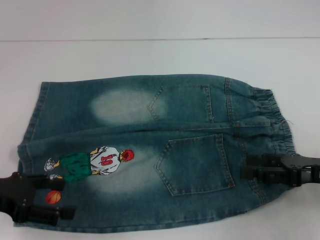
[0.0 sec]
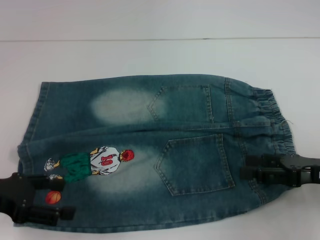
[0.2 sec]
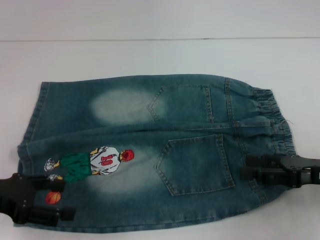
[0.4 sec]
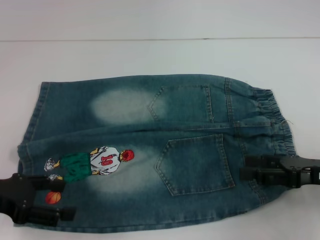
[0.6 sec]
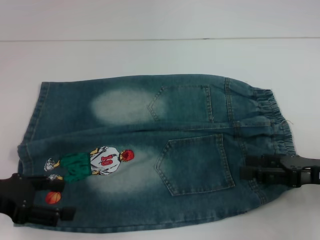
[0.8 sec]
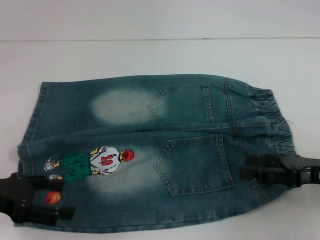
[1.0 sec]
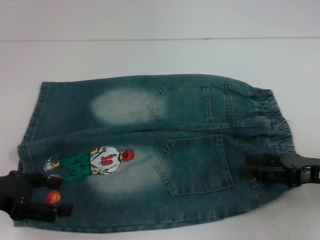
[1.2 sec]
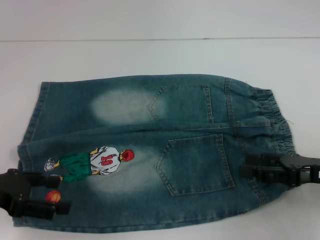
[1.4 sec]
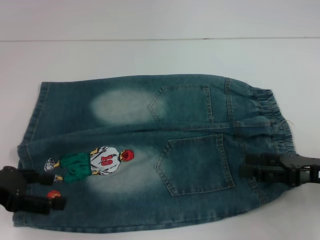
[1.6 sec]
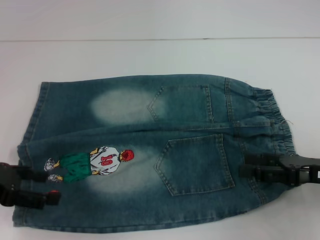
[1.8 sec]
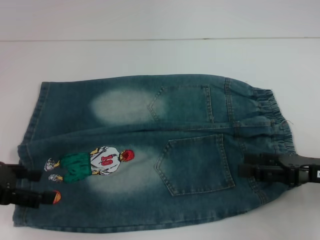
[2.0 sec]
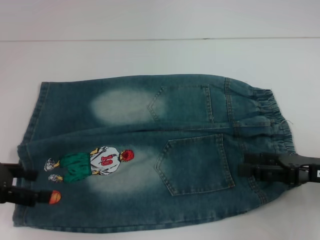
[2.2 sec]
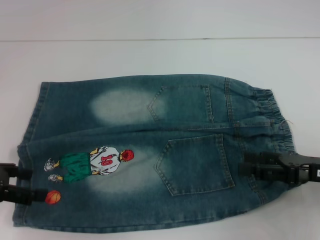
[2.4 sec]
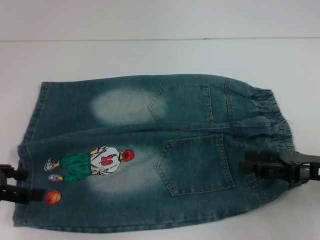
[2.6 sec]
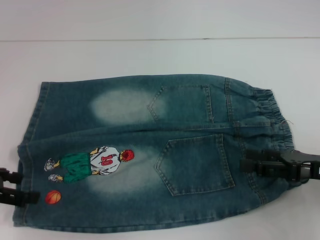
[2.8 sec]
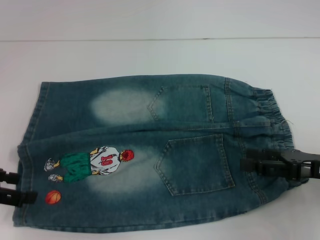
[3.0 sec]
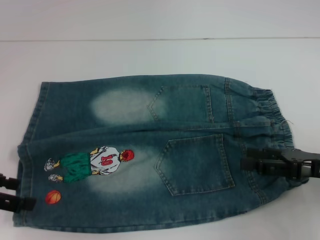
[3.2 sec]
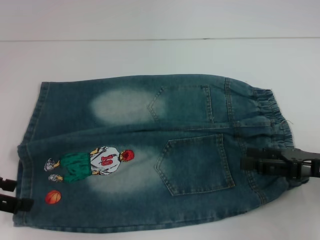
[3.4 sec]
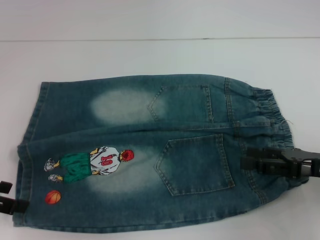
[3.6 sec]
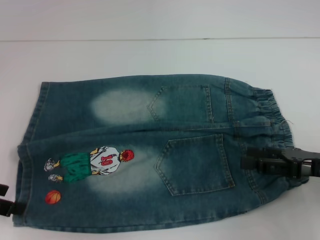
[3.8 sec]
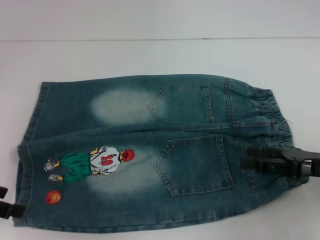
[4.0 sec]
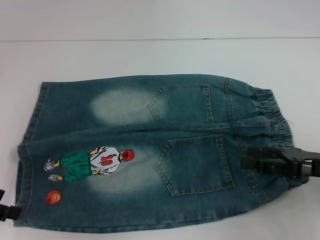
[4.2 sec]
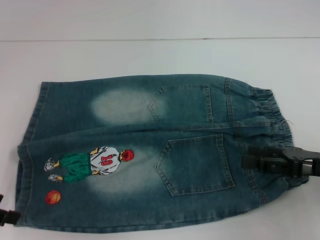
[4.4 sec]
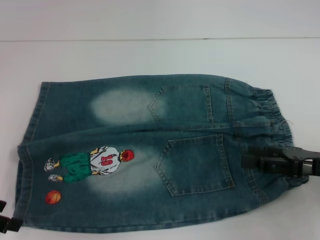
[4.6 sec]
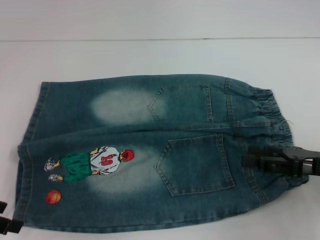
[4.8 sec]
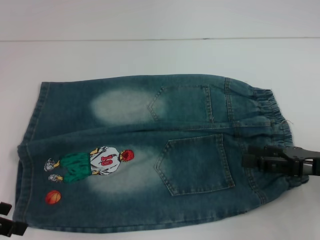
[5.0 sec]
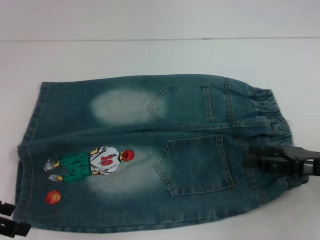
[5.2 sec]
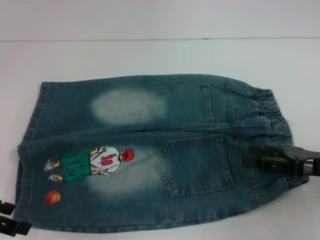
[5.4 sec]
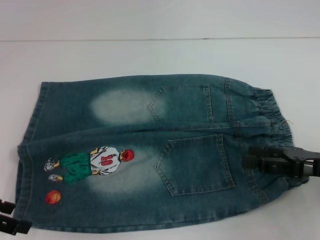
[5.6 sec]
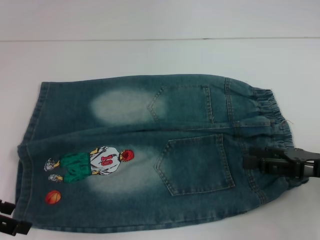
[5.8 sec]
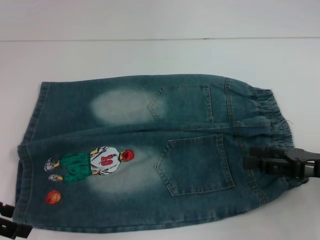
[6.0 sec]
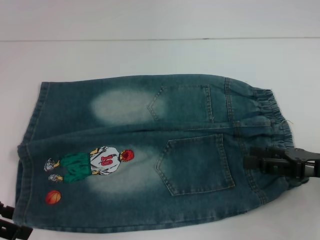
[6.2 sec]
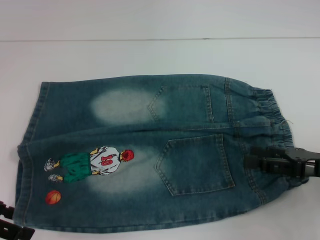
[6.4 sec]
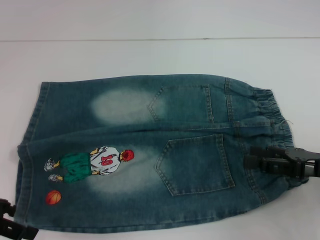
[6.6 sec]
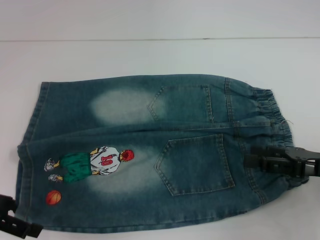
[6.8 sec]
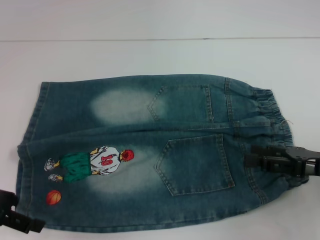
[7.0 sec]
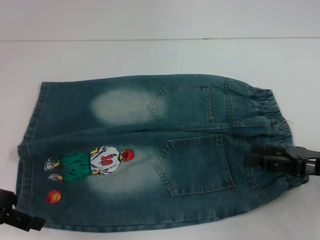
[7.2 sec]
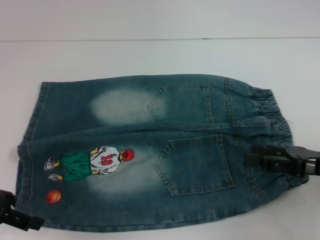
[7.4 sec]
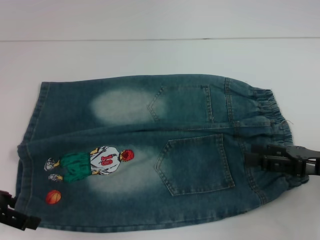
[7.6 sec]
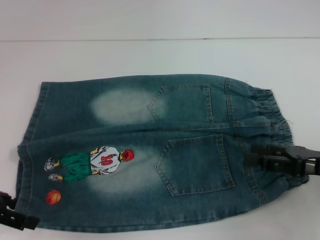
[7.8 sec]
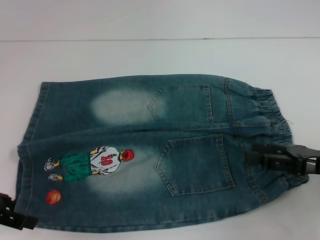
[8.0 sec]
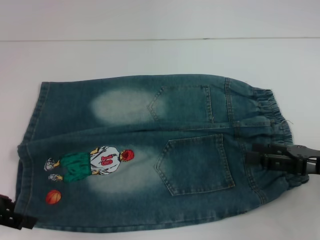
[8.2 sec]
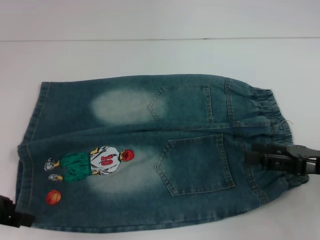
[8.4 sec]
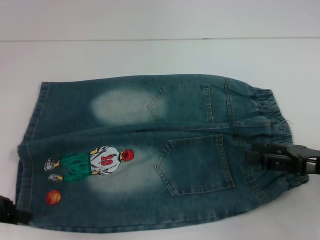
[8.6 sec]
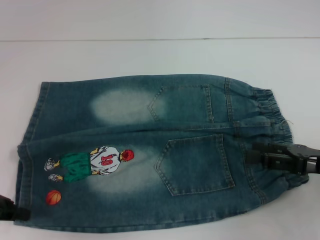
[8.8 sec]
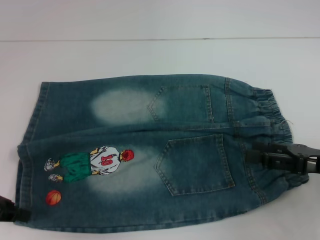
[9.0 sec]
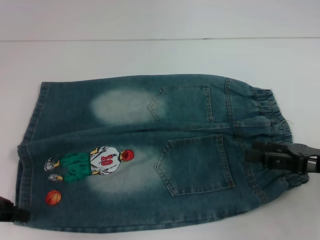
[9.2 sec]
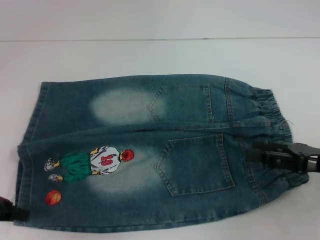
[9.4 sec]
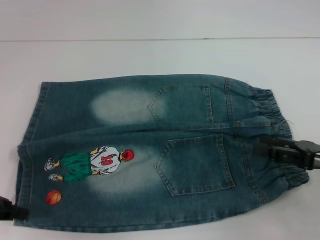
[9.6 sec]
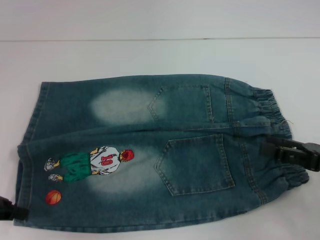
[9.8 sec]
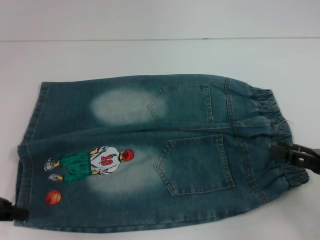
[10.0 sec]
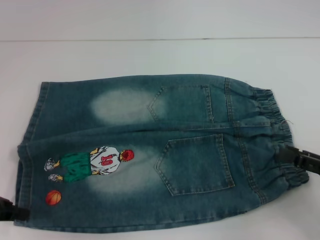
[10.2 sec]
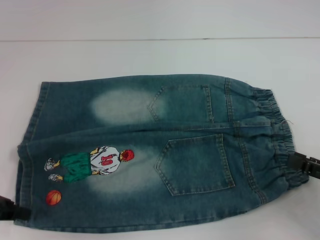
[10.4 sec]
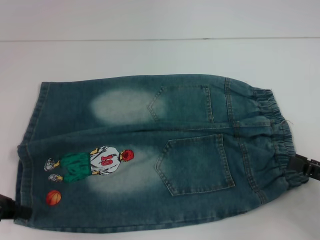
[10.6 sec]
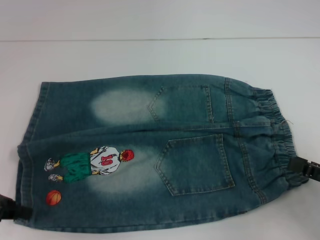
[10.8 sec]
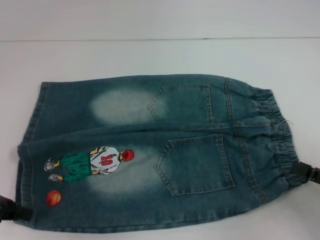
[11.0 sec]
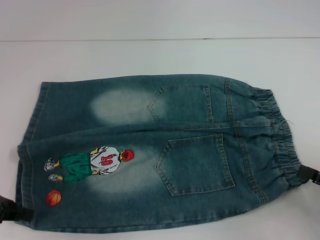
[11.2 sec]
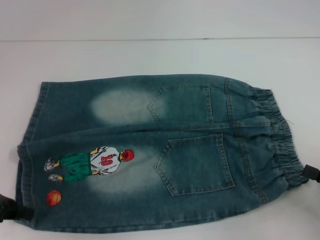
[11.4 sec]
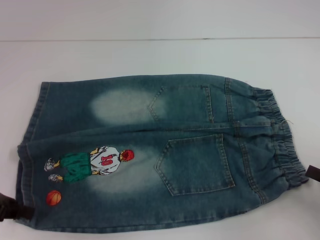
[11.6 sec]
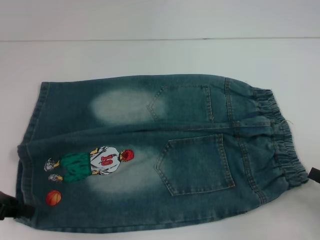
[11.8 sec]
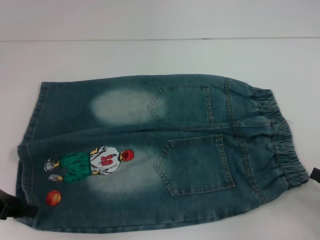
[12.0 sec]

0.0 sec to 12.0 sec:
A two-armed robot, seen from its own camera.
Step, 0.0 sec to 8.8 sec: Grab the lower left pant leg with your left hand.
0.0 sec to 3.0 sec: The grippers move only a little.
3.0 sec to 7.6 sec: The grippers stay close to where they were, moving slightly.
7.6 sec to 9.0 sec: The left gripper closes up.
9.0 sec to 10.4 sec: The right gripper heads backward, covering about 5 cm.
10.4 sec to 12.0 sec: The grippers move only a little.

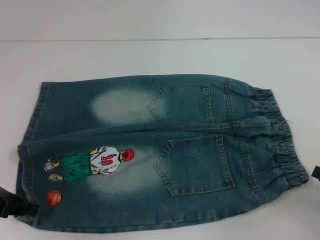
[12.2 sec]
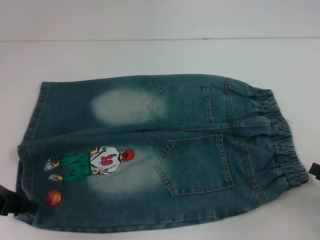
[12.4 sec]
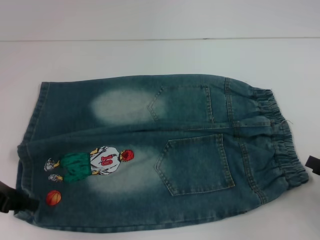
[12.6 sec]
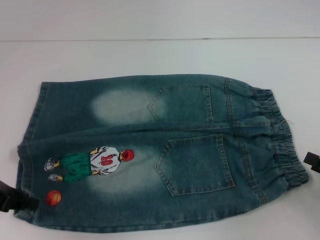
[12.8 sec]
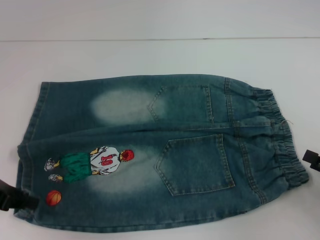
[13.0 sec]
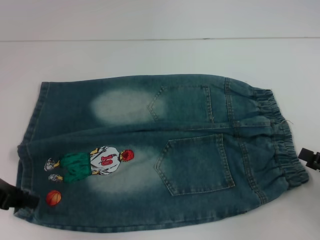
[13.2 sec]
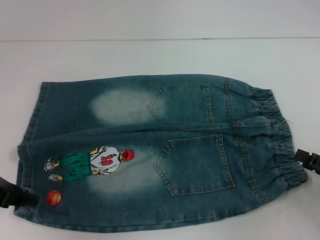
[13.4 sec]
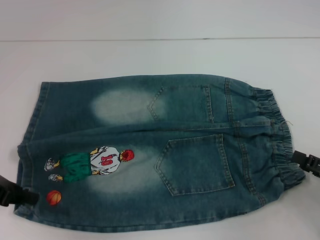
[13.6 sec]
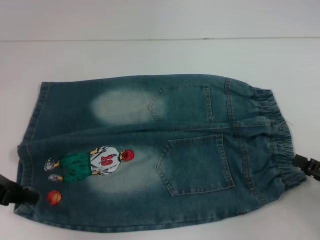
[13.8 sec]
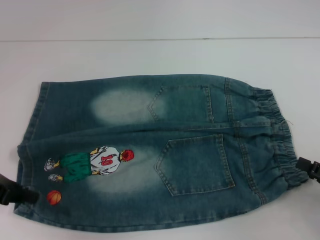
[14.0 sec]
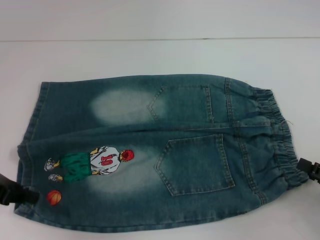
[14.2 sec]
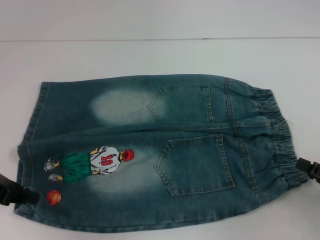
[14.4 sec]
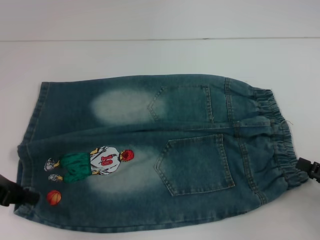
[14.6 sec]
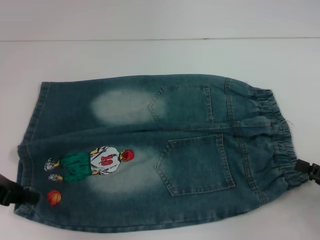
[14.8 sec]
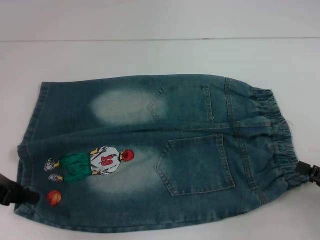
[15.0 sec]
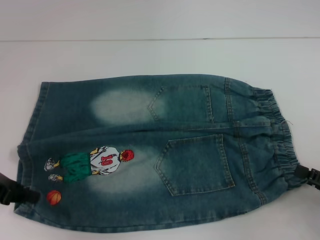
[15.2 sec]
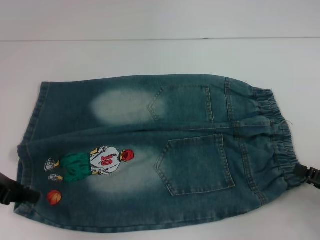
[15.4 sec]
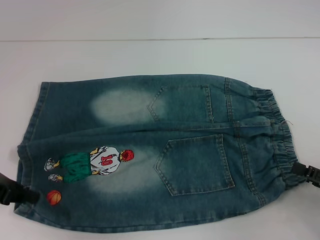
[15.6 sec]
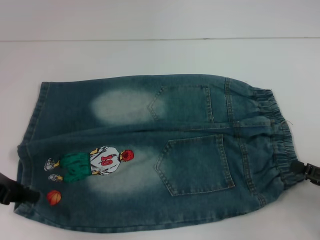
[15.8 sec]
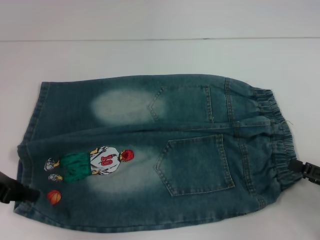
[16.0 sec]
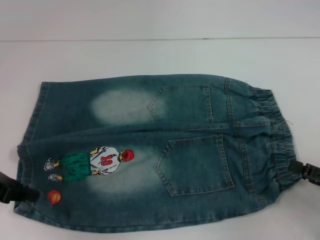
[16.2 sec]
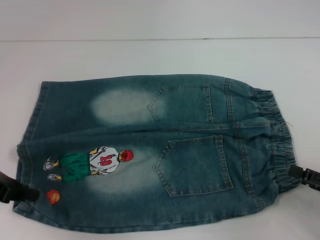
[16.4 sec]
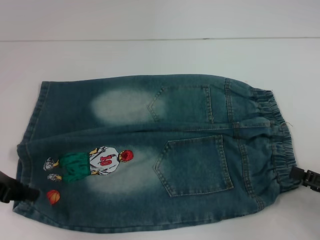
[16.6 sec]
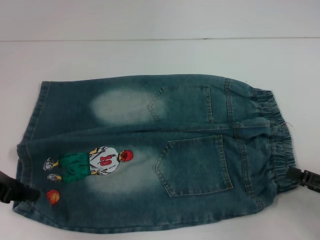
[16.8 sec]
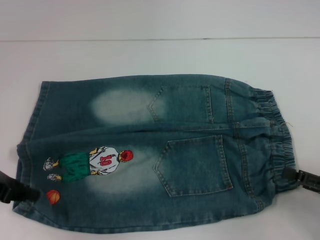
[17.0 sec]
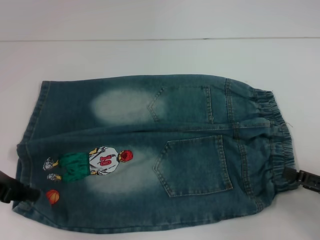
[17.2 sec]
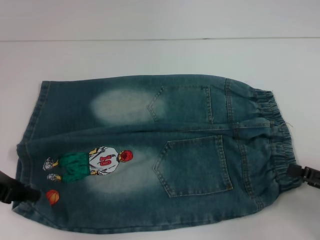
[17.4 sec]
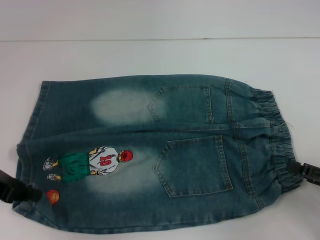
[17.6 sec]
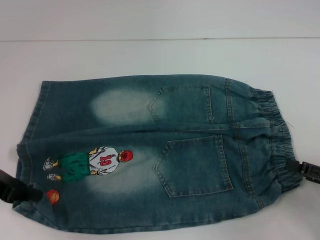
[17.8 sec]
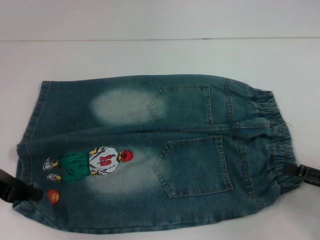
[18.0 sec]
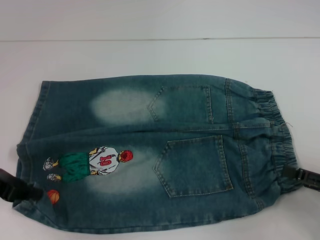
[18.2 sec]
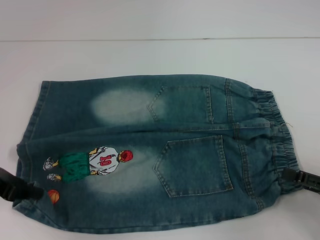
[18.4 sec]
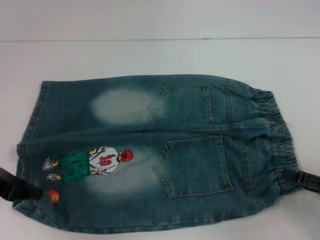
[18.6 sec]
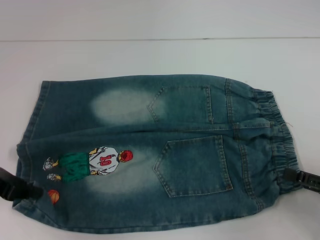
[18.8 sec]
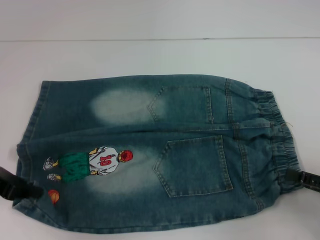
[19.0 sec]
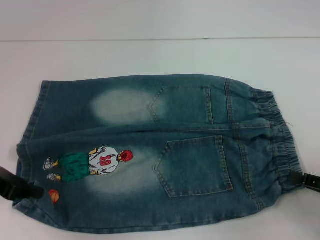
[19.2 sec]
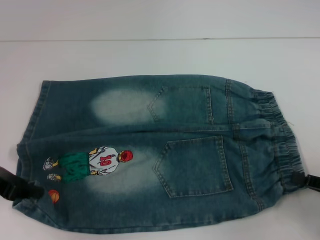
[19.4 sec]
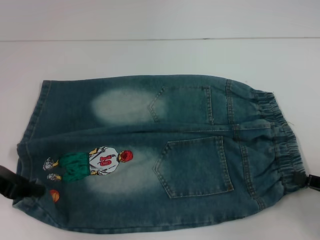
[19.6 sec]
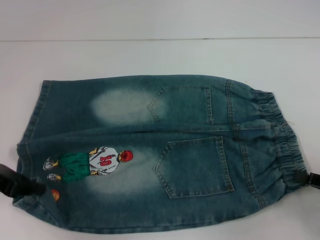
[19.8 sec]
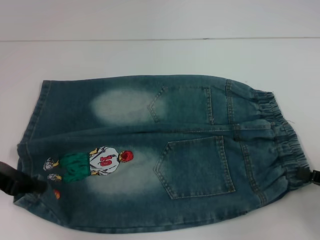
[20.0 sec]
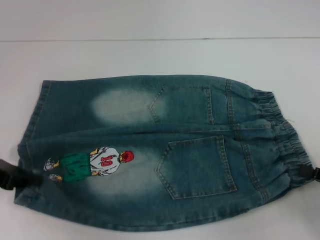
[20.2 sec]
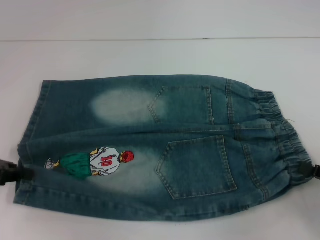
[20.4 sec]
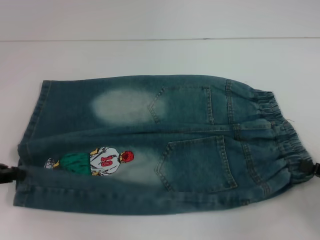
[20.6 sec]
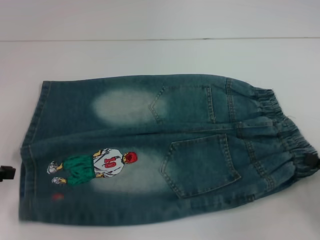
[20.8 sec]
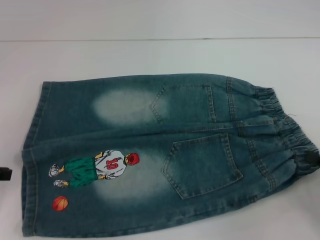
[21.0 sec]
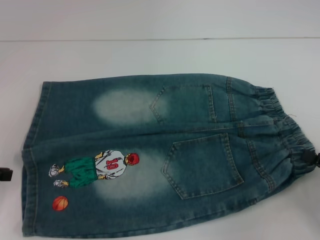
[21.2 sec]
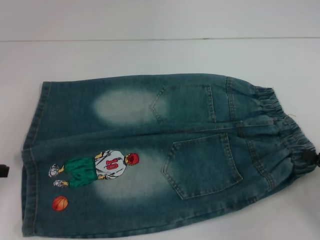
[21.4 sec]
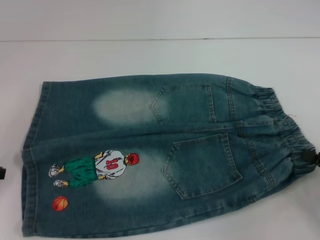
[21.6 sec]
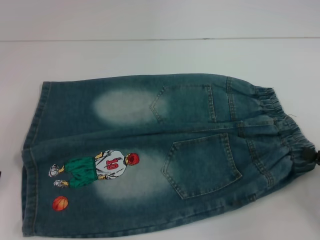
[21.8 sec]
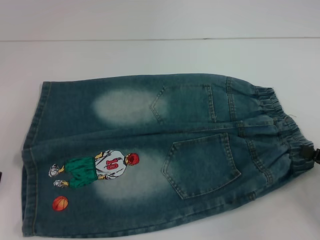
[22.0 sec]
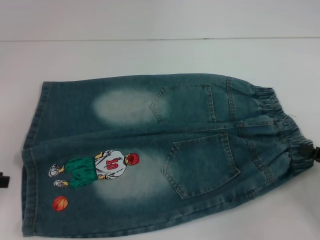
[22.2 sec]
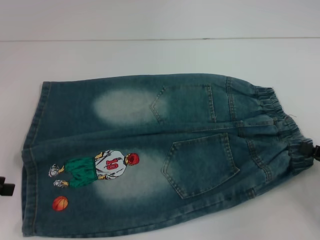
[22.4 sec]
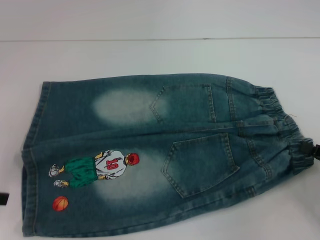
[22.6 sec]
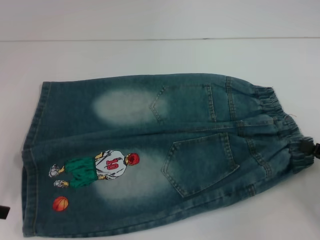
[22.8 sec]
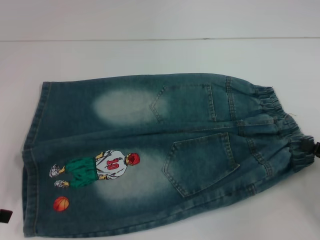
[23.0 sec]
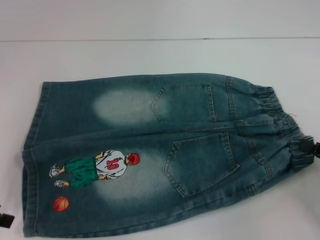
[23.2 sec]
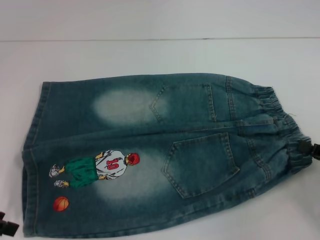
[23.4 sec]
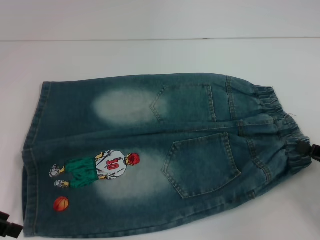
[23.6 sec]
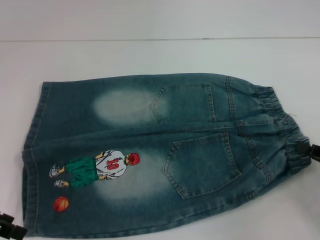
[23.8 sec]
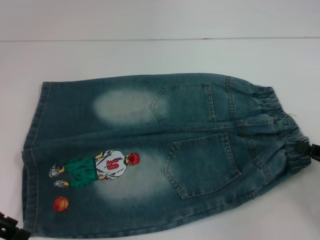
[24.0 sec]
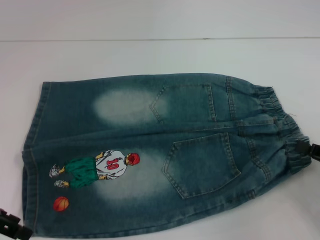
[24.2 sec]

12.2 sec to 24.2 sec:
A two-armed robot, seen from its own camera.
12.2 sec to 13.8 sec: The grippers make only small movements.
13.8 sec to 16.6 sec: Neither gripper changes place.
16.6 sec to 18.2 sec: The grippers stay close to where they were, moving slightly.
18.2 sec to 19.8 sec: The right gripper closes.
19.8 sec to 21.2 sec: The left gripper is displaced to the left by some 5 cm.
21.2 sec to 22.6 sec: The left gripper opens up.
22.6 sec to 24.2 sec: The left gripper is displaced to the right by roughly 5 cm.
